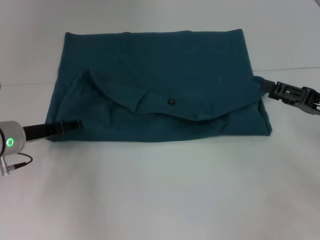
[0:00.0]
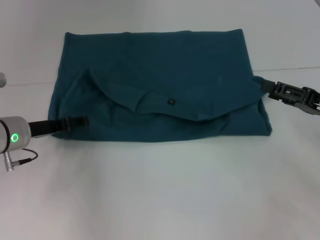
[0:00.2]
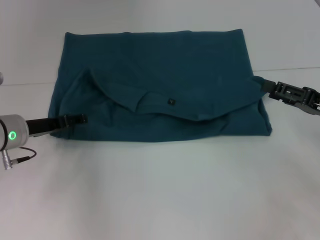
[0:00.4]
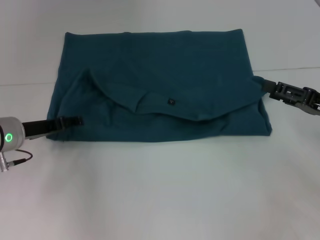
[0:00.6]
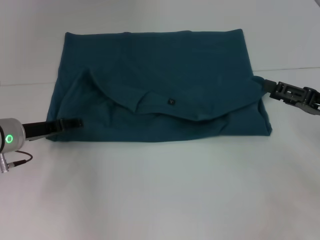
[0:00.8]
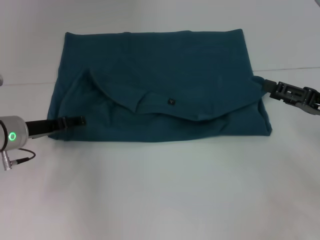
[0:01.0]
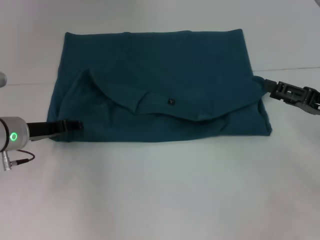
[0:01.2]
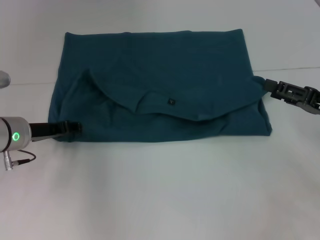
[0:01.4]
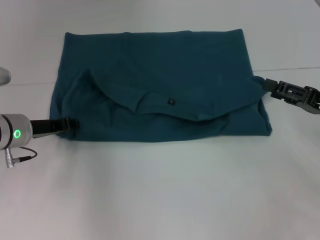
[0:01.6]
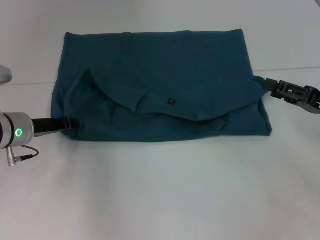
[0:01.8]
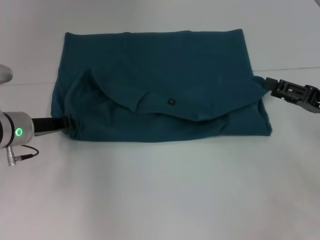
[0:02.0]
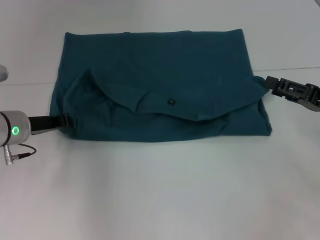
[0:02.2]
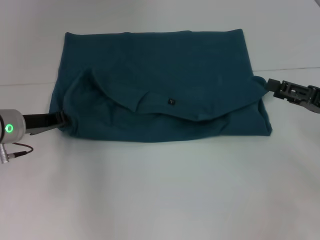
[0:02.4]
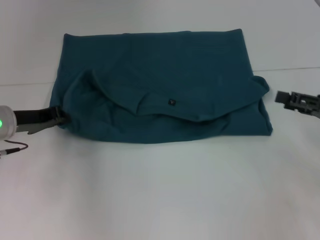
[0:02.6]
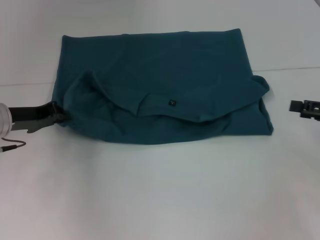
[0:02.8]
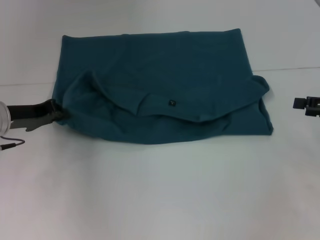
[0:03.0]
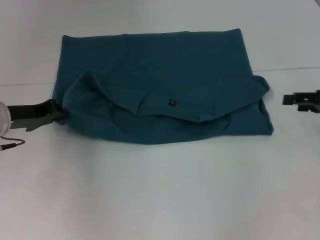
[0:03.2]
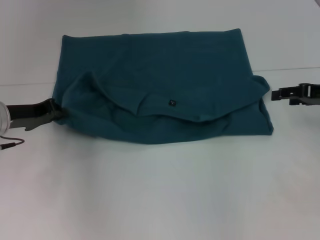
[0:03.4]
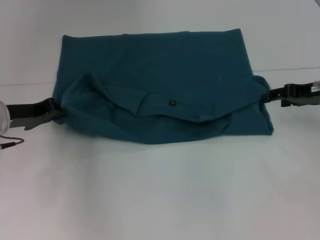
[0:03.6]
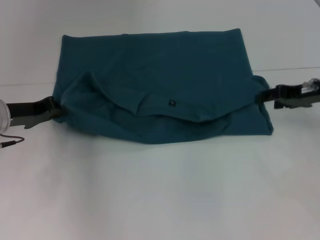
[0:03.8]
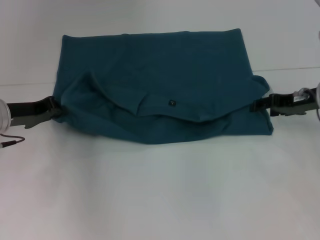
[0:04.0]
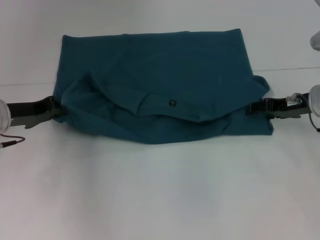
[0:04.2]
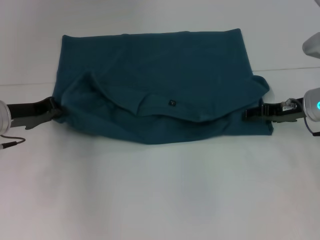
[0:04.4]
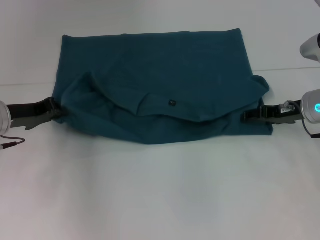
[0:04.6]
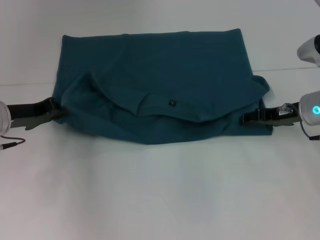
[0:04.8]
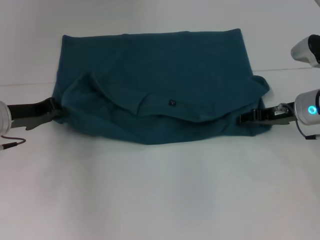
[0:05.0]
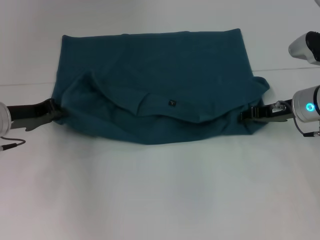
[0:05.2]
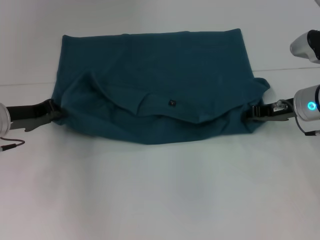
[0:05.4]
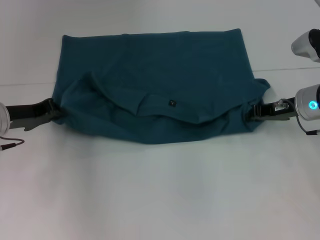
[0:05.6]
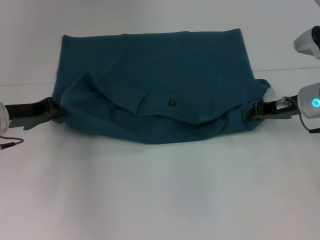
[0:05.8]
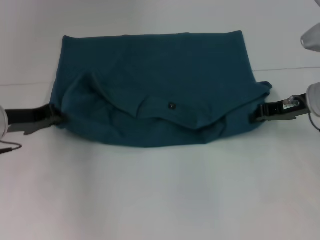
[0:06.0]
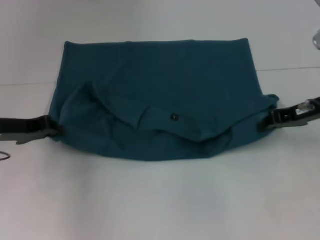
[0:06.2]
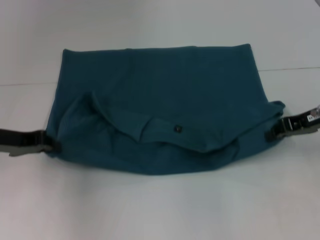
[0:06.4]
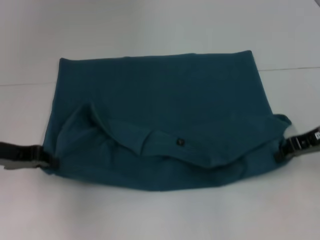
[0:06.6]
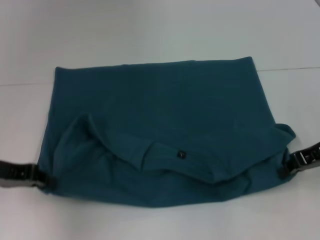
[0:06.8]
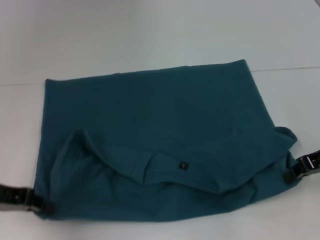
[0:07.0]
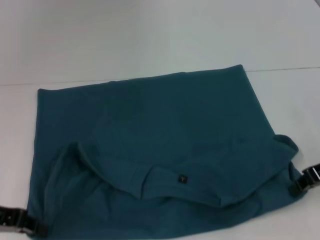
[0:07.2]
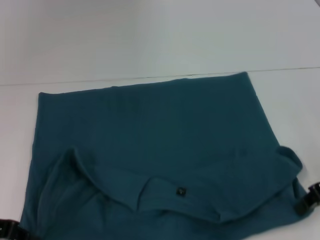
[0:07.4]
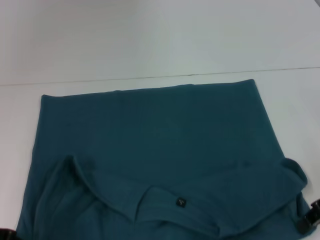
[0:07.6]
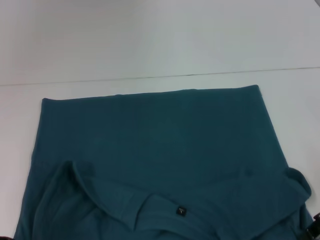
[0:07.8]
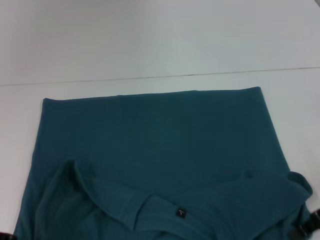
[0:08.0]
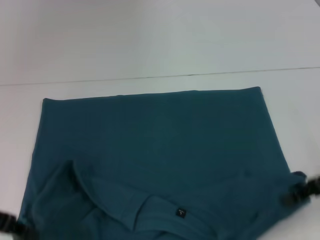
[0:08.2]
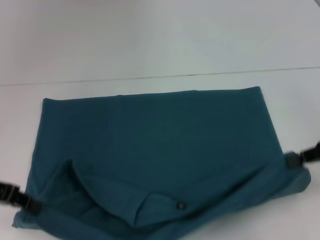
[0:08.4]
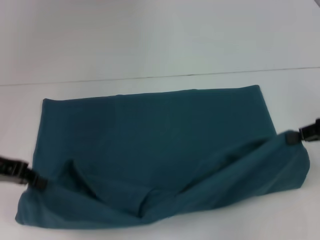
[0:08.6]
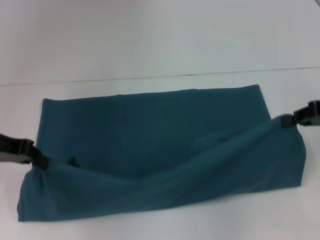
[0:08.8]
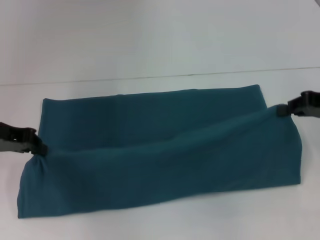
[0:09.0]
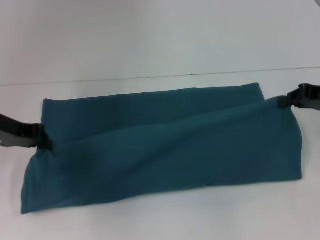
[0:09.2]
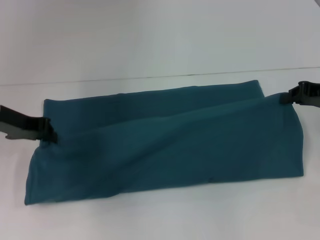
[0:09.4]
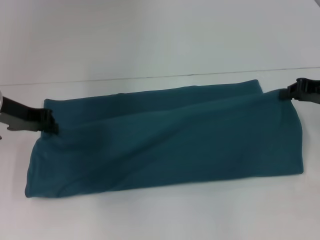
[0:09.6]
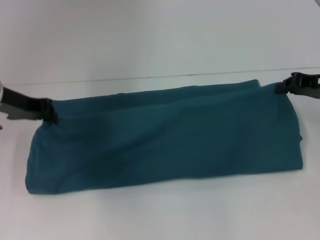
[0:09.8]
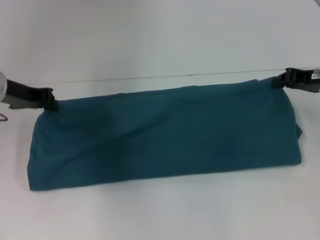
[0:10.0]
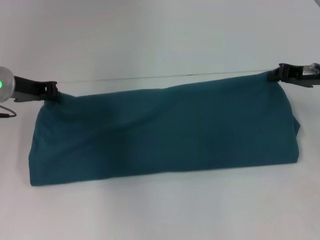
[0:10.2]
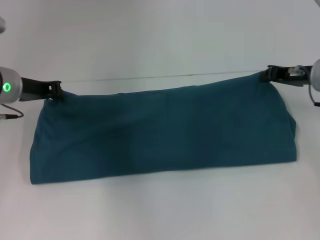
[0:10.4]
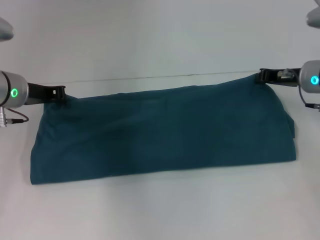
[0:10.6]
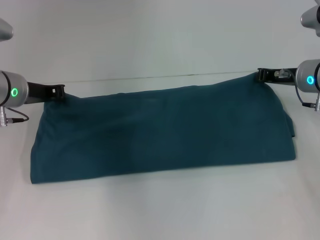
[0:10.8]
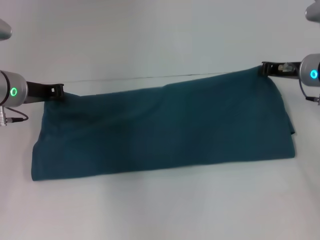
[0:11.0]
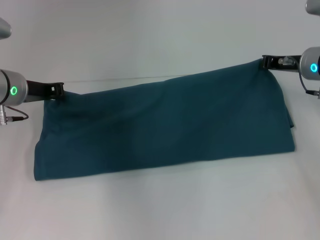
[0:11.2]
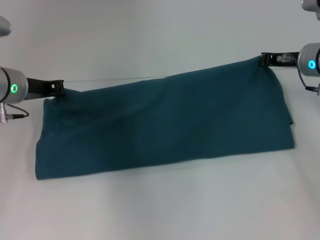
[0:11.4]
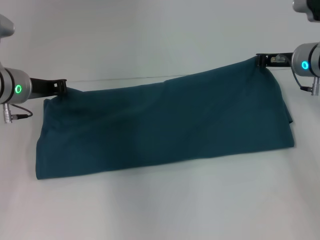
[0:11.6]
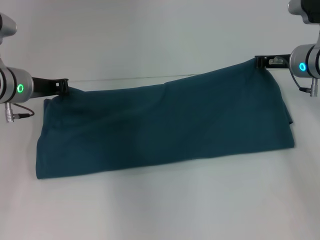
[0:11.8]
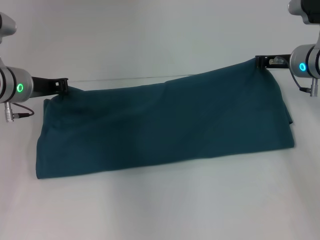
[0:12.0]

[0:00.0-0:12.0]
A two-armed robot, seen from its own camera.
Step, 0:00.0 to 0:07.6: Pull the clothes with your left hand.
Step, 0:00.0 to 0:07.6: Pull the clothes with your right hand.
0:00.0 to 0:01.6: There are only small adjustments of the grippers.
0:01.6 to 0:03.0: The right gripper shifts some 5 cm to the right, while the left gripper closes.
0:03.0 to 0:04.4: The right gripper goes about 15 cm to the left and forward.
0:04.4 to 0:06.0: The right gripper closes its fingers.
0:06.0 to 0:07.6: The two grippers go approximately 10 cm backward.
0:07.6 to 0:09.0: The left gripper moves forward and upward, some 10 cm; the right gripper heads forward, covering approximately 5 cm.
0:09.0 to 0:10.4: The left gripper shifts approximately 5 cm forward. Meanwhile the right gripper shifts about 10 cm forward and to the left.
0:10.4 to 0:12.0: The grippers make only small movements.

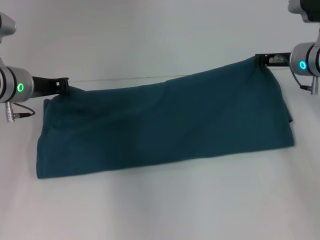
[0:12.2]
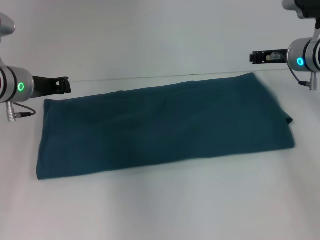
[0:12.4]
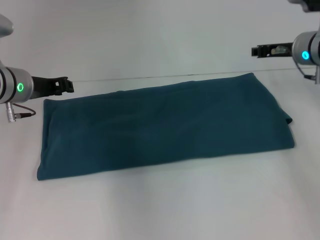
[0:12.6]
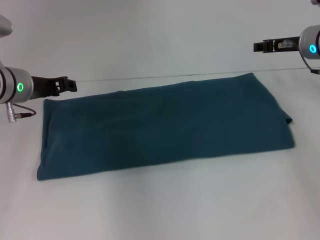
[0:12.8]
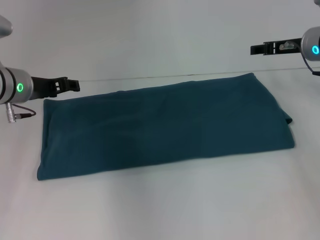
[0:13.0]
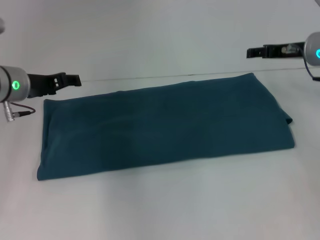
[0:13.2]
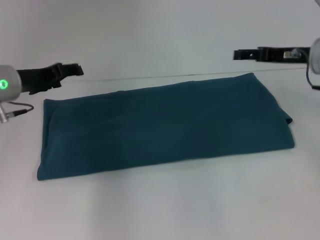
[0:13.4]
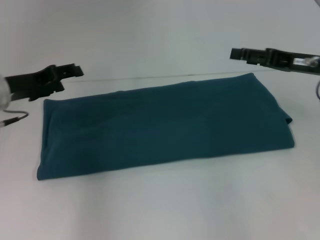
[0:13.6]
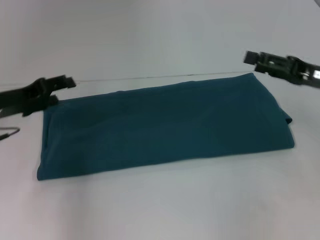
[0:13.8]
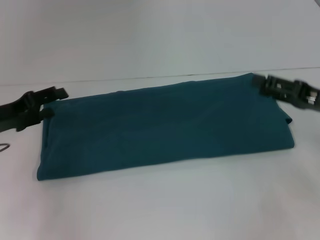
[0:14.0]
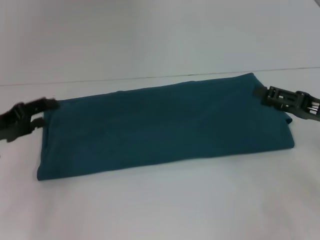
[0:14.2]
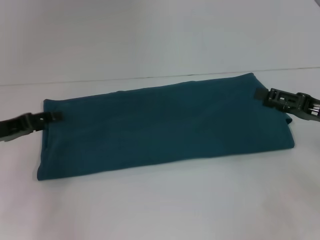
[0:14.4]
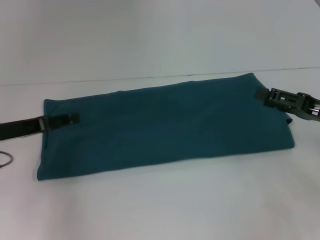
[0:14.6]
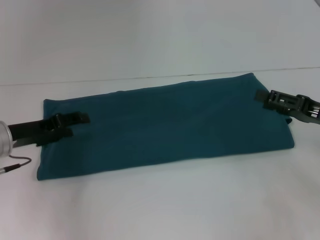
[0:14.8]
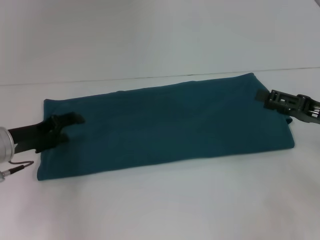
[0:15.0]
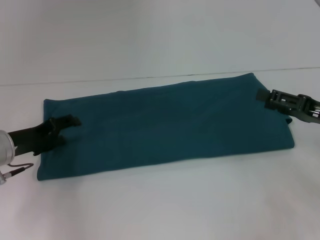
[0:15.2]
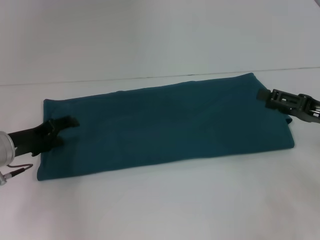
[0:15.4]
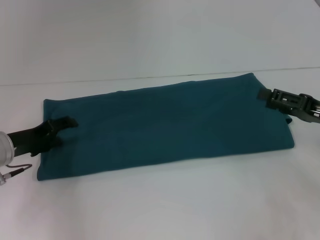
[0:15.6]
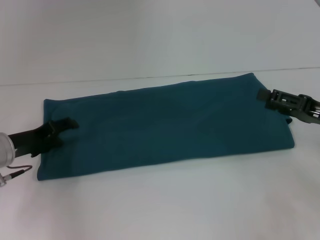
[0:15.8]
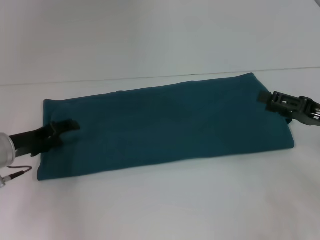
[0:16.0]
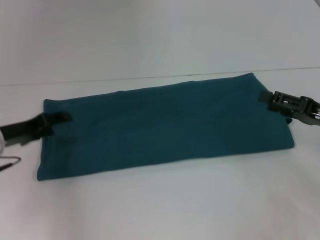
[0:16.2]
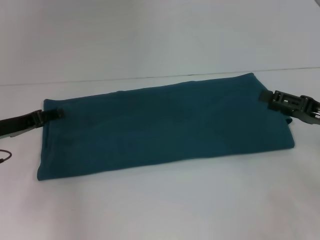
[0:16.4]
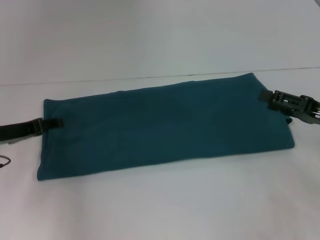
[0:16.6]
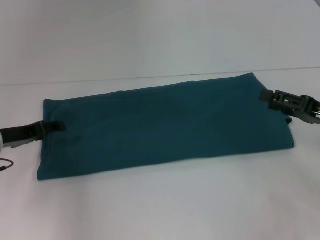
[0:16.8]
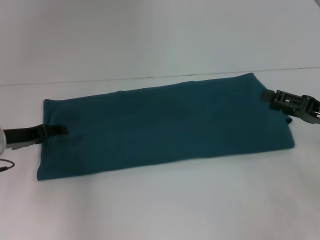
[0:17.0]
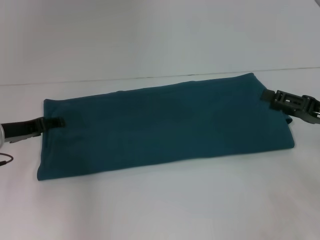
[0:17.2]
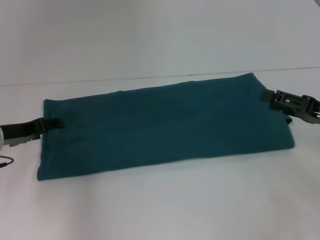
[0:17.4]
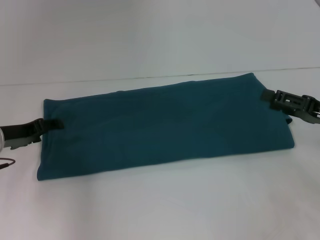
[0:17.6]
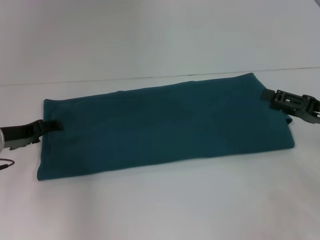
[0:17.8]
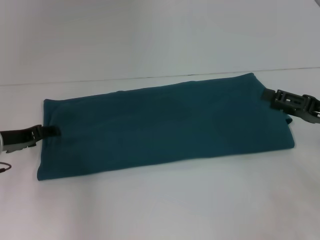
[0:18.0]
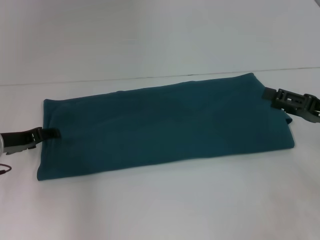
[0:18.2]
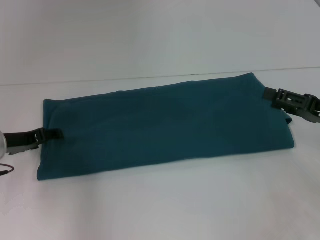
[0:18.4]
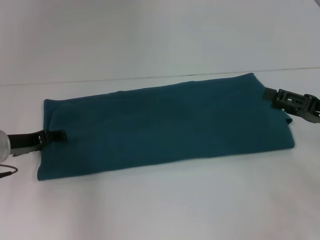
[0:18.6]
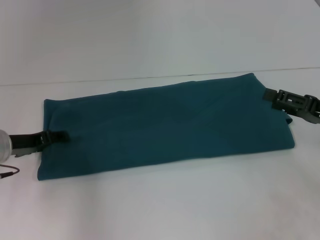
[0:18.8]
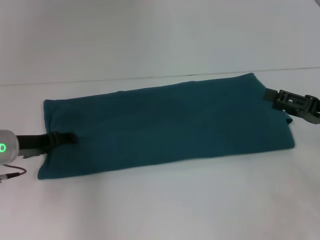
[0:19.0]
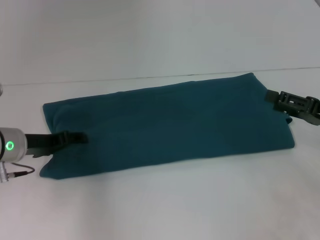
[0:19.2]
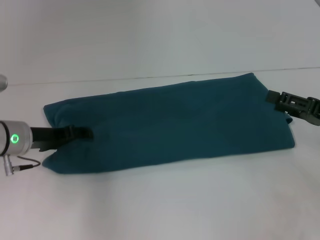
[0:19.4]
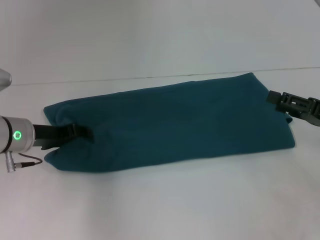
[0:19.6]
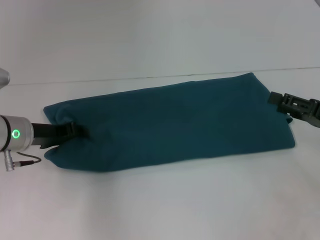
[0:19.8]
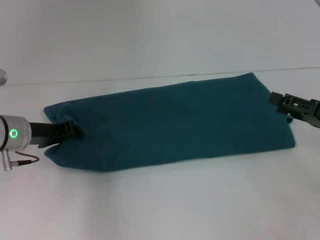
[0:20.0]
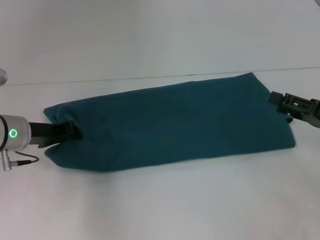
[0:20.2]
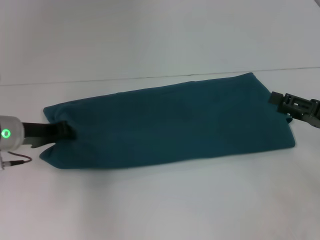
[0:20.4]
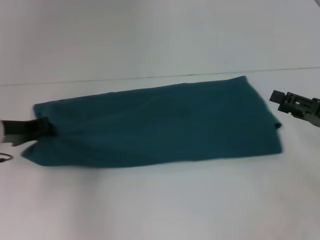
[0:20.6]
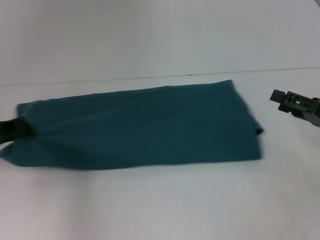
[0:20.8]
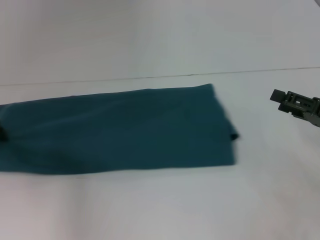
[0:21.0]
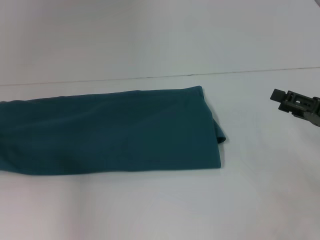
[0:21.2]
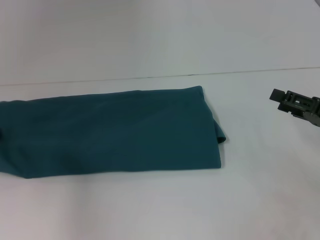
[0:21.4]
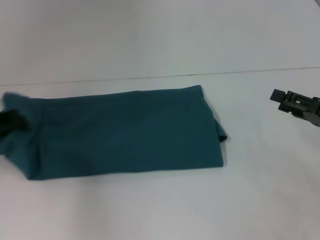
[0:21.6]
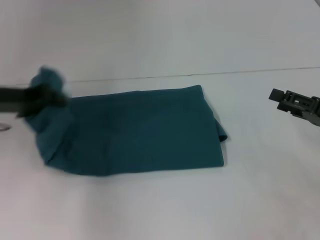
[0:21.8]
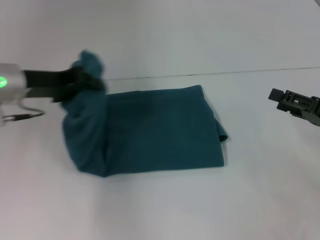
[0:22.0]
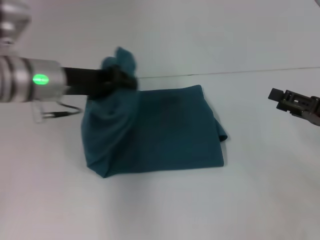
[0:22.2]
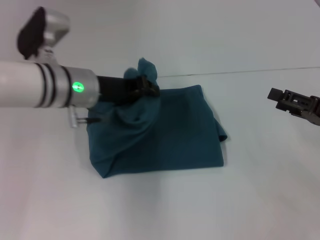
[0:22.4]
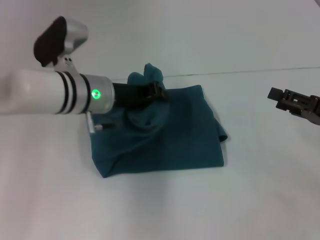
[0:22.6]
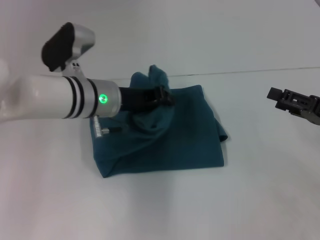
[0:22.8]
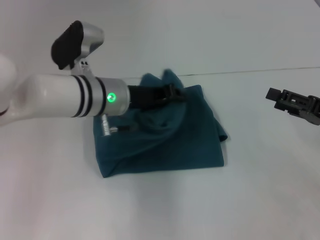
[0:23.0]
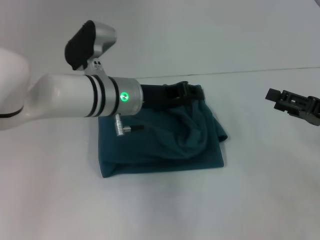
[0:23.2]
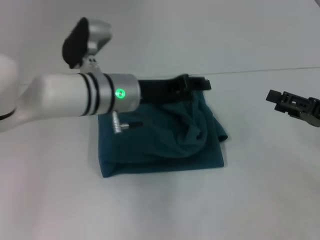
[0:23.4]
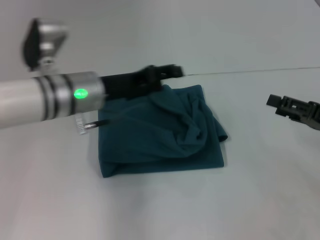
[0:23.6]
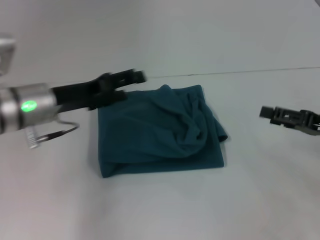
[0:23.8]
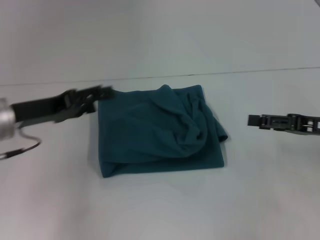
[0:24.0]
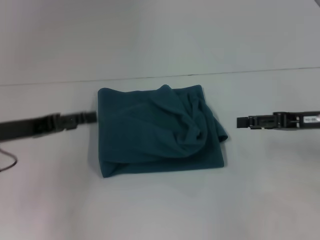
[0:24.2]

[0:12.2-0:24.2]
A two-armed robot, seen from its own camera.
Step, 0:12.2 to 0:23.6: Fold the clothes to the left.
0:12.2 to 0:13.8: The right gripper is displaced backward and to the right by about 15 cm, and opens its fingers, while the left gripper moves backward and to the left, some 10 cm, and opens up.
0:13.8 to 0:15.2: The right gripper moves about 5 cm. The left gripper travels downward by approximately 5 cm.
0:16.6 to 0:19.8: The grippers make only small movements.
0:19.8 to 0:21.2: The left gripper heads to the left, covering approximately 10 cm, and closes.
0:21.2 to 0:22.6: The left gripper shifts some 25 cm to the right.
0:22.6 to 0:24.2: The right gripper shifts by approximately 5 cm. Meanwhile the left gripper travels to the left and backward by approximately 15 cm, and opens.
